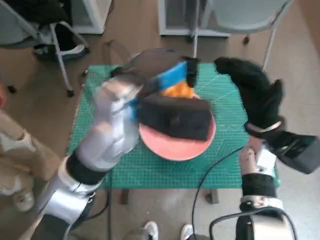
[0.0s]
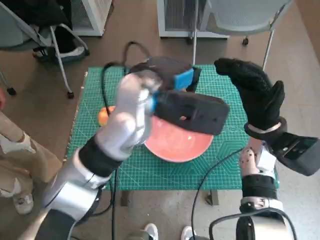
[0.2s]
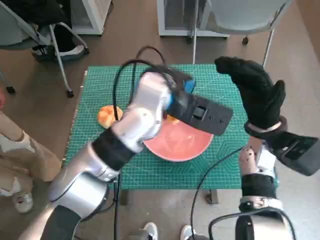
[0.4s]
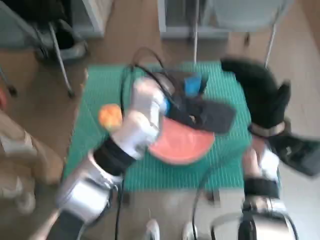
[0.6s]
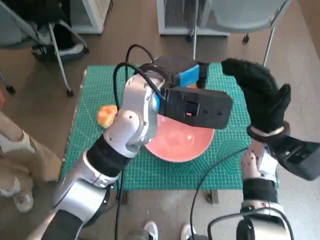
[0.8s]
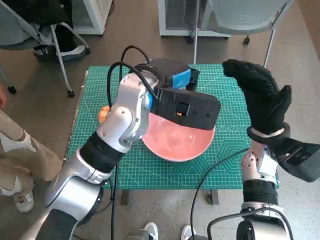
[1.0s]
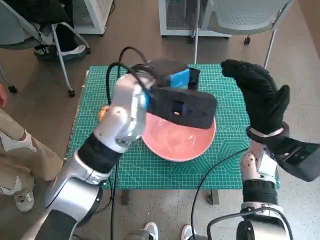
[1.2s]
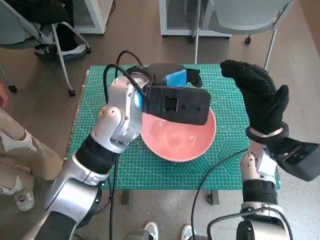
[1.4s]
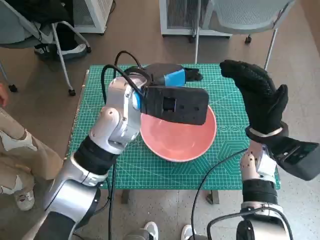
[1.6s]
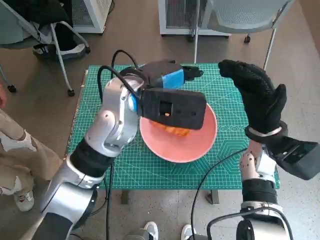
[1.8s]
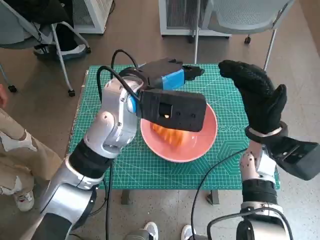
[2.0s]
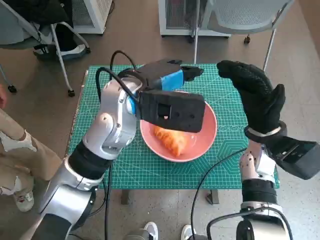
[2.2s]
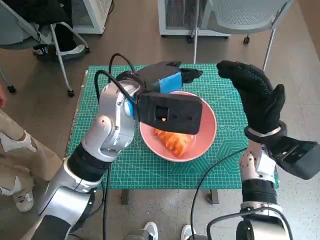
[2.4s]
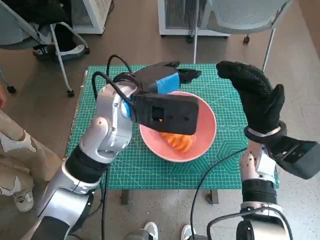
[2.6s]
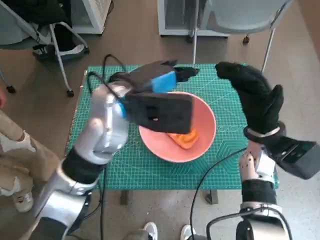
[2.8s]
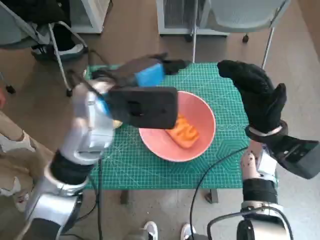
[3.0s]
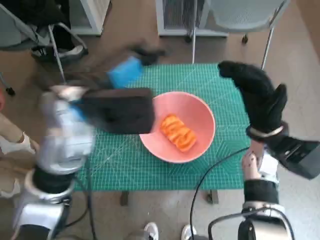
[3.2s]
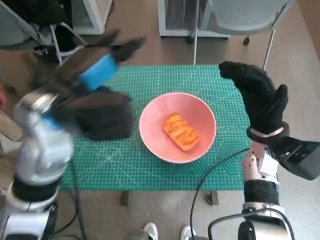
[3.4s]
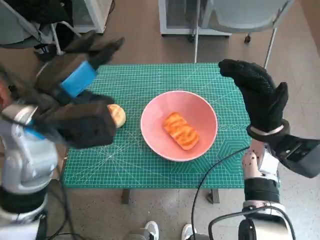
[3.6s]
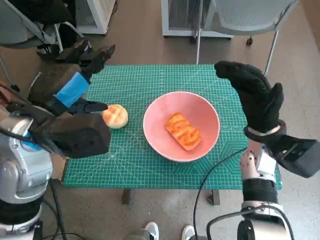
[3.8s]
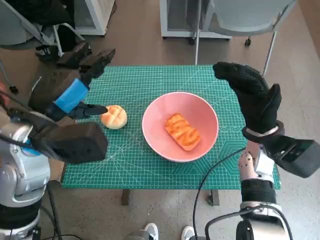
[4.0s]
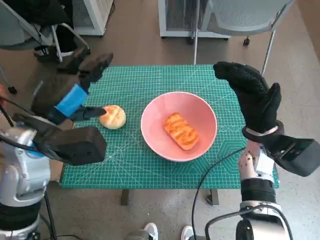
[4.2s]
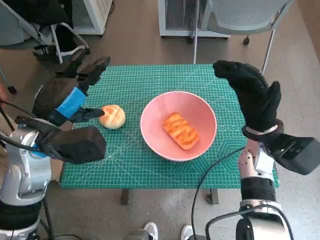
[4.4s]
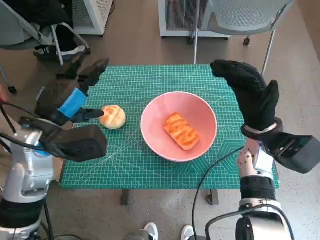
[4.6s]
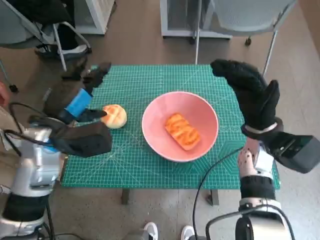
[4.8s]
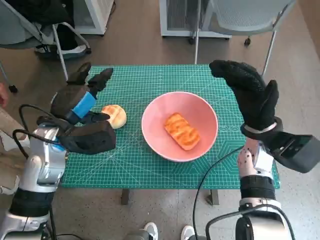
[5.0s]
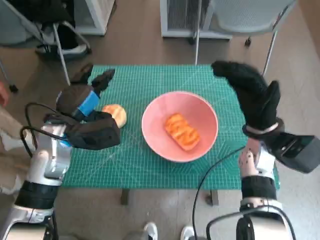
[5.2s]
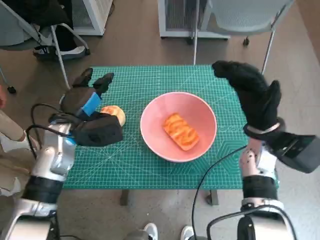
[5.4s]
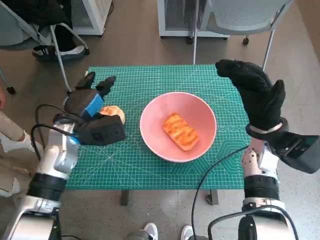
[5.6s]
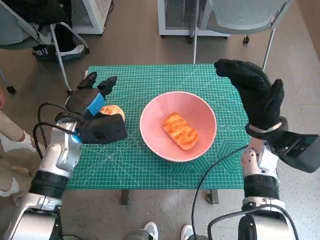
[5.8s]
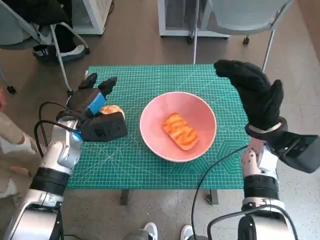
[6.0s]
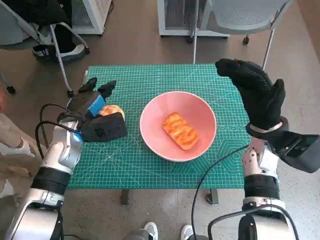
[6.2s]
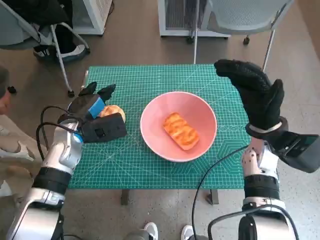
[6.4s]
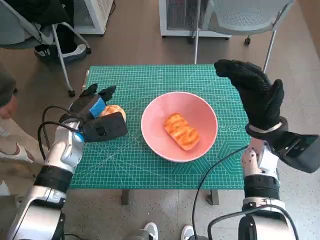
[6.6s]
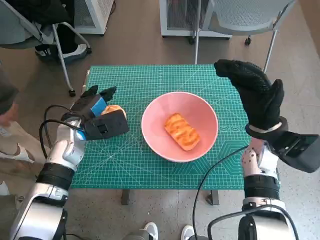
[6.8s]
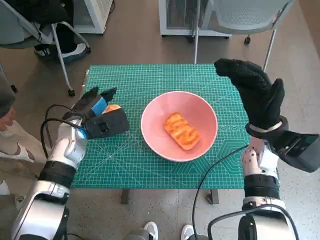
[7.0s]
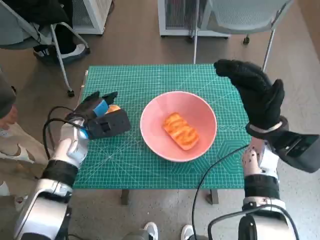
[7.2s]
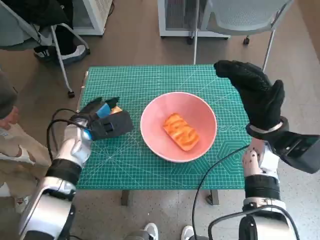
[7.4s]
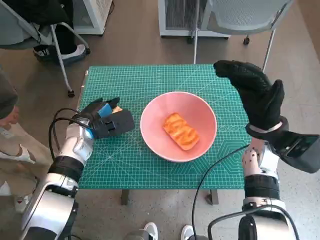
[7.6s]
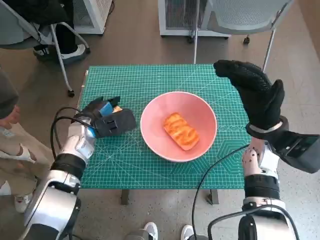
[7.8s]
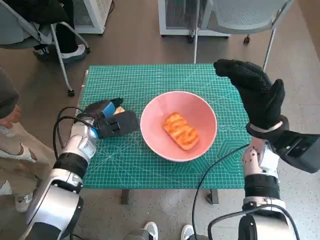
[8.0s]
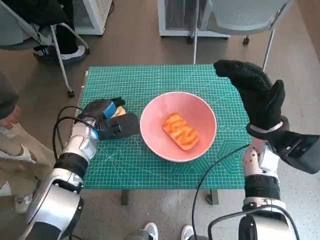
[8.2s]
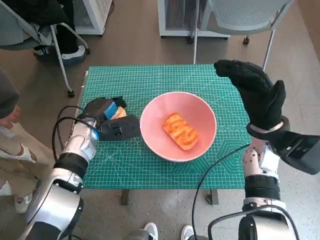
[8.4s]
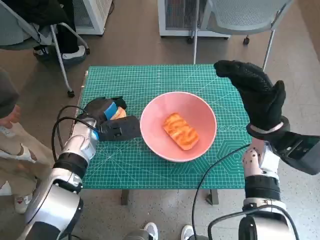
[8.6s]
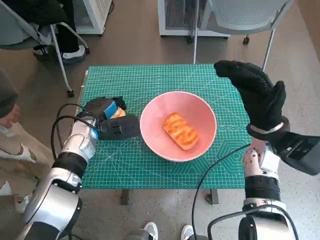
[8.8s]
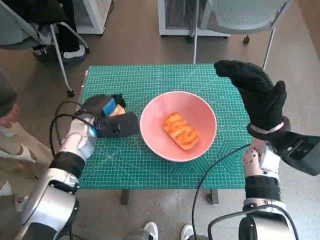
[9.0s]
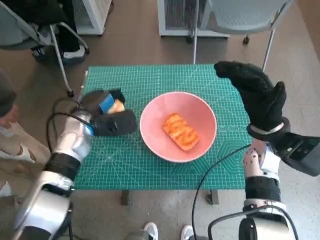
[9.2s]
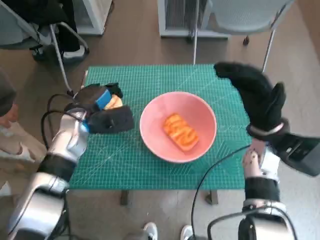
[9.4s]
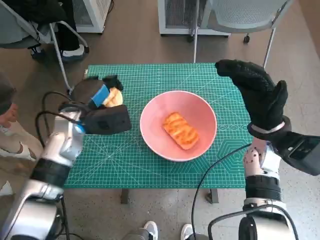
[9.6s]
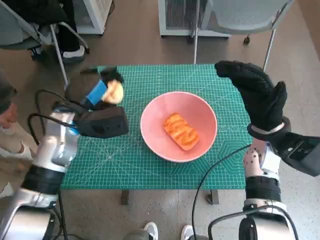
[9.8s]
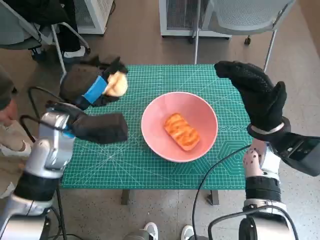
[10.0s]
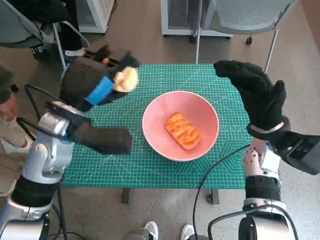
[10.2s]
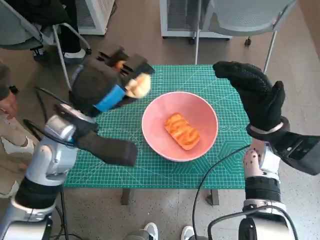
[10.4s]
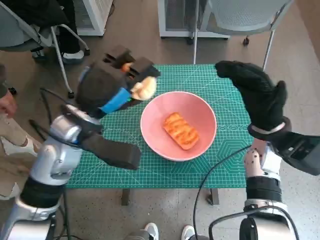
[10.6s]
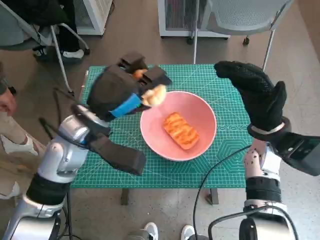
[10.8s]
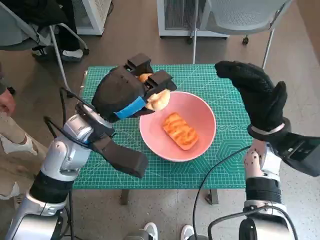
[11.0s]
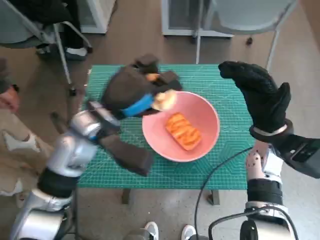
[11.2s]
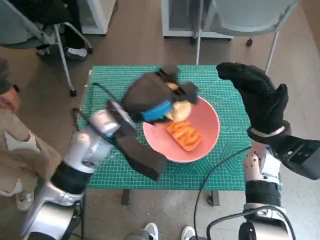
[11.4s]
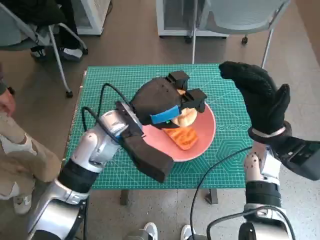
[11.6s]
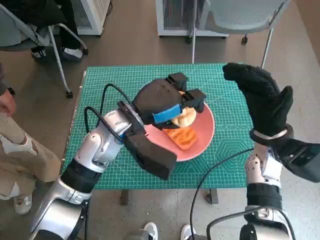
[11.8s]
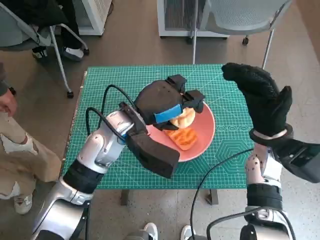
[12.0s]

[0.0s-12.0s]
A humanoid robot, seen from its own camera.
Step, 0.0s to 2.0s: Place the long bread in pink bowl with left hand.
Step, 2.2s to 8.6s: Grasp the round bread with left hand.
0.0s to 1.6s: The left hand moves roughly 5 cm.
3.0s to 4.4s: The left hand heads to the left and backward, covering some 10 cm.
4.4s to 6.0s: The left hand goes roughly 10 cm downward and forward.
7.6s to 9.0s: The hands stay close to where they were, moving slightly.
9.0s to 10.4s: The left hand travels upward and backward by approximately 15 cm.
10.4s to 12.0s: The left hand travels to the right by about 10 cm.

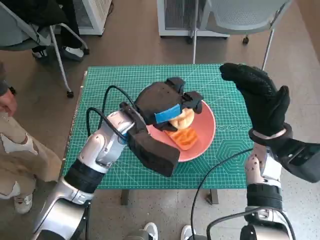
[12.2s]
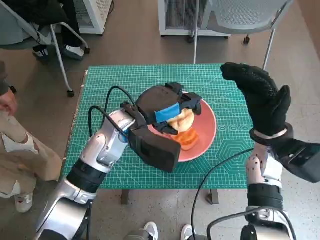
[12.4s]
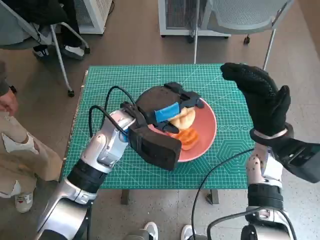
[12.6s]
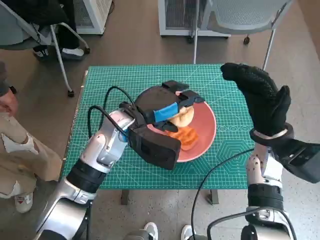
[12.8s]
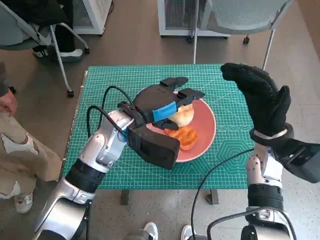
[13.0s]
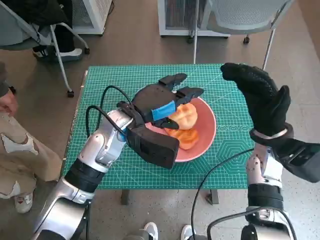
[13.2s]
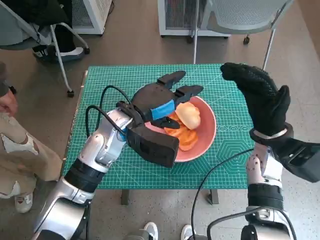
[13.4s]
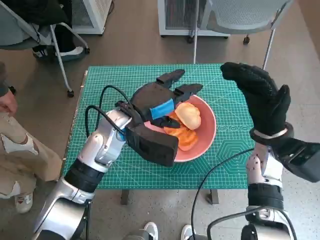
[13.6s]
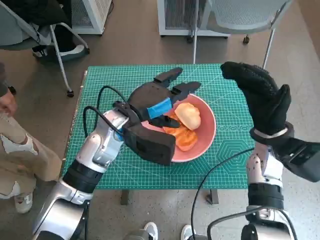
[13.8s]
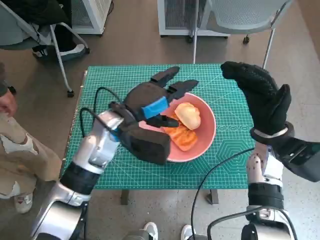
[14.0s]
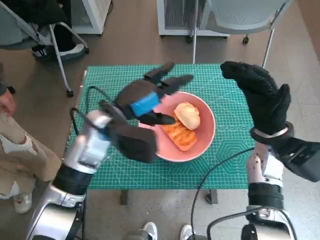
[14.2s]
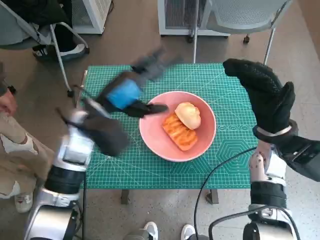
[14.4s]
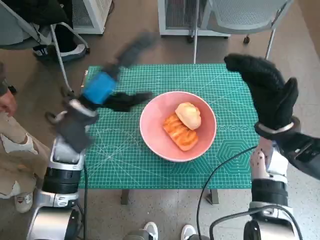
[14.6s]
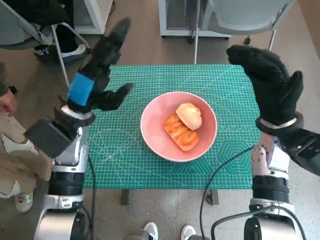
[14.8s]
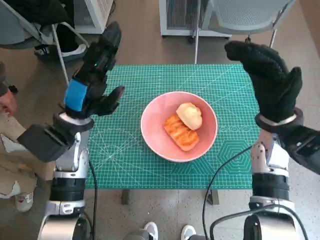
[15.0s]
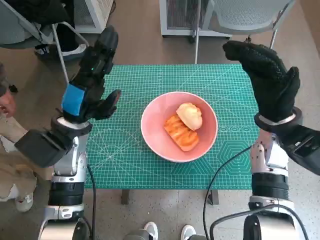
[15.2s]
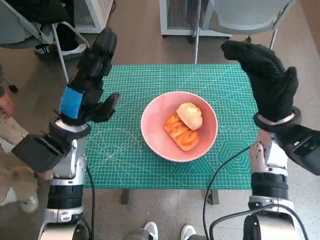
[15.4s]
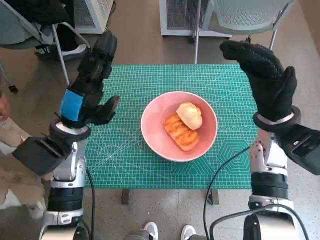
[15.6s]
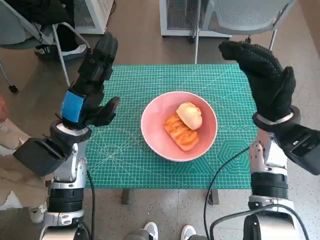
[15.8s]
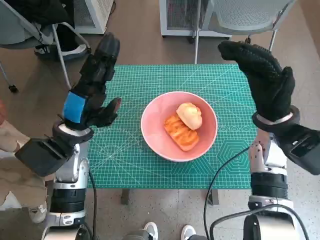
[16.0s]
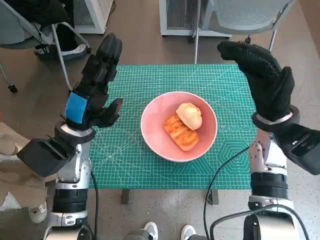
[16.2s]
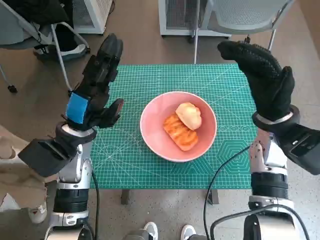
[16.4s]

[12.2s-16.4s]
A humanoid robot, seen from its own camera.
12.2s to 13.6s: The hands stay close to where they were, moving slightly.
13.6s to 15.0s: The left hand shifts roughly 10 cm to the left.
15.0s to 16.4s: The hands move only a little.

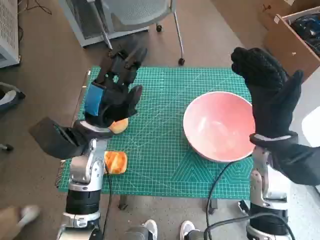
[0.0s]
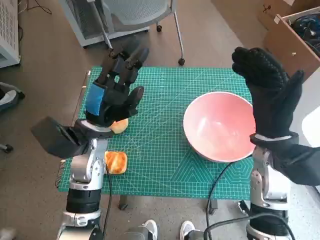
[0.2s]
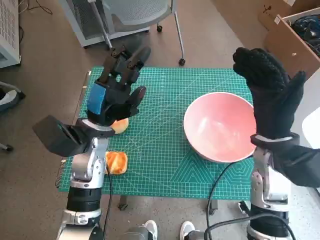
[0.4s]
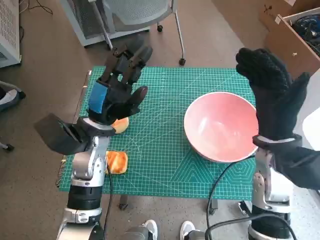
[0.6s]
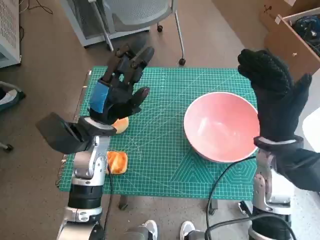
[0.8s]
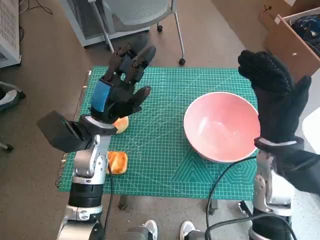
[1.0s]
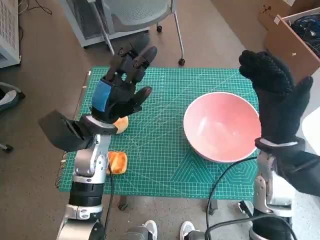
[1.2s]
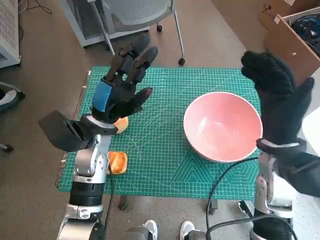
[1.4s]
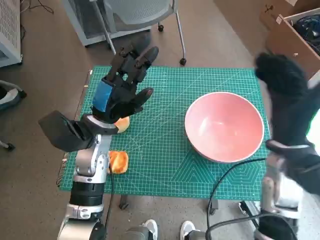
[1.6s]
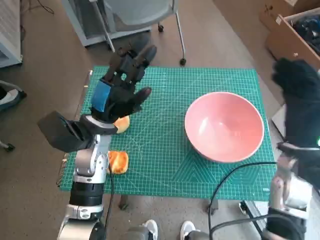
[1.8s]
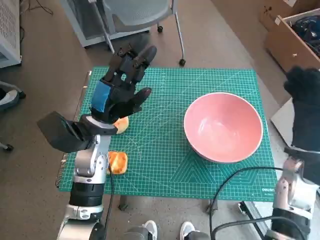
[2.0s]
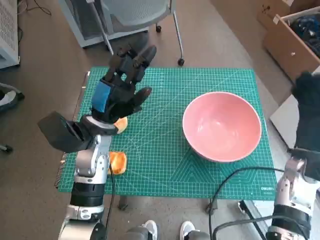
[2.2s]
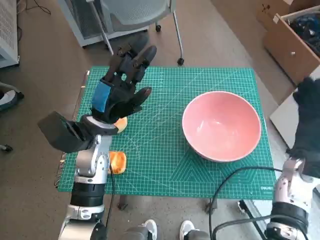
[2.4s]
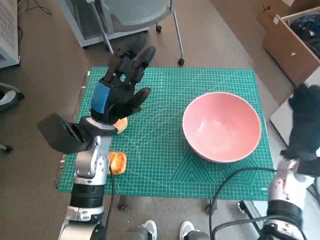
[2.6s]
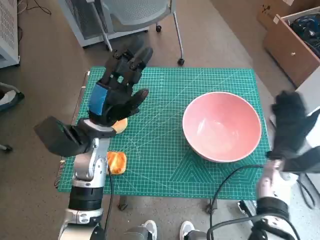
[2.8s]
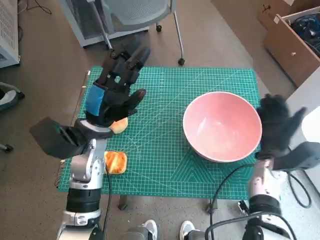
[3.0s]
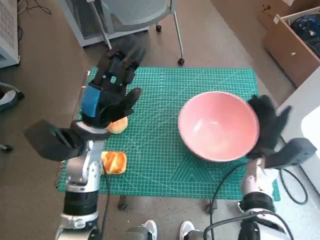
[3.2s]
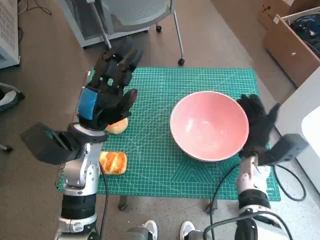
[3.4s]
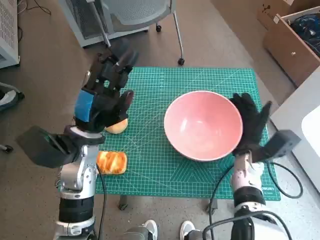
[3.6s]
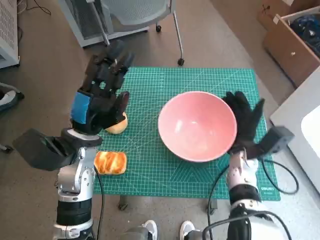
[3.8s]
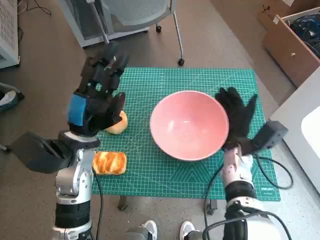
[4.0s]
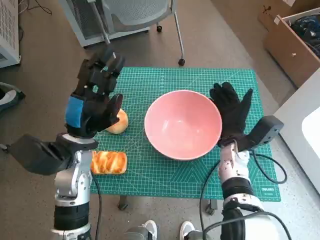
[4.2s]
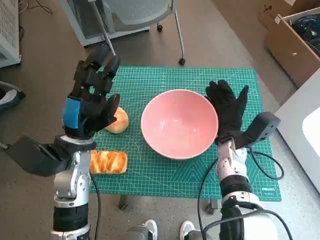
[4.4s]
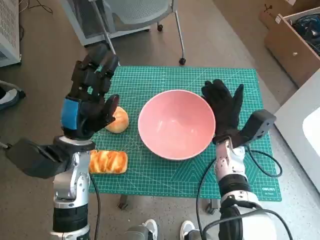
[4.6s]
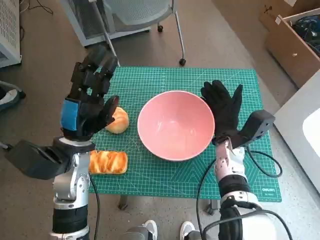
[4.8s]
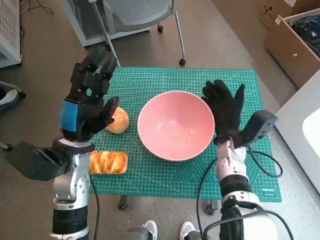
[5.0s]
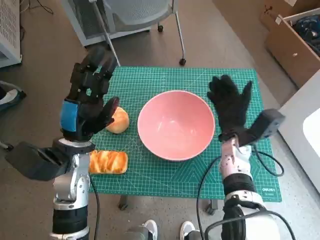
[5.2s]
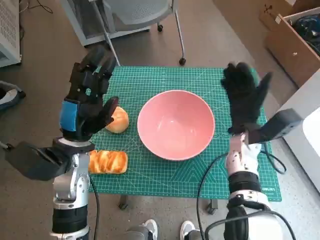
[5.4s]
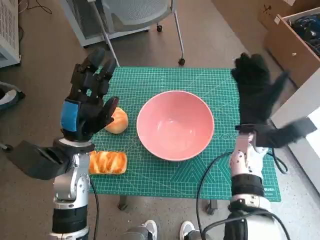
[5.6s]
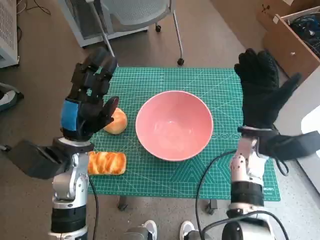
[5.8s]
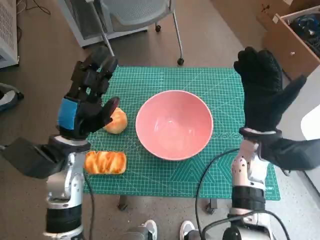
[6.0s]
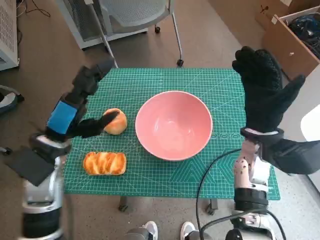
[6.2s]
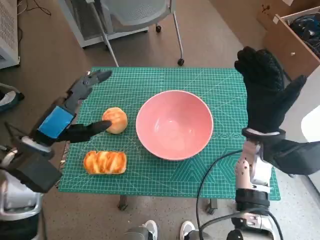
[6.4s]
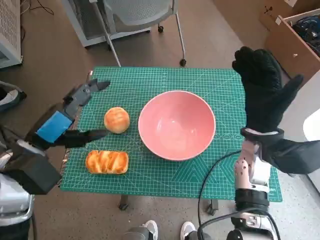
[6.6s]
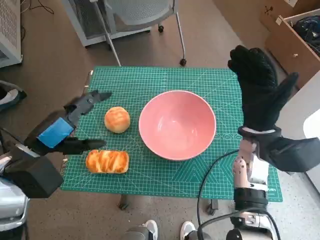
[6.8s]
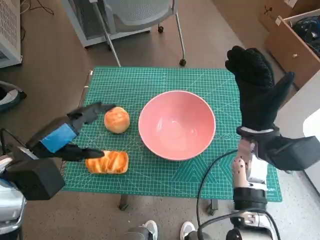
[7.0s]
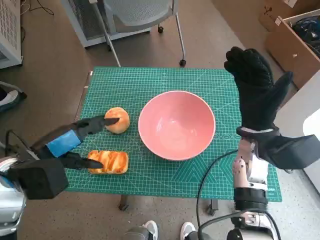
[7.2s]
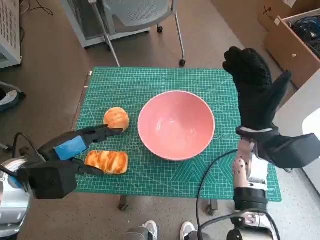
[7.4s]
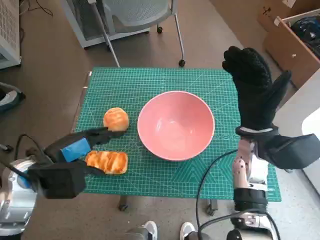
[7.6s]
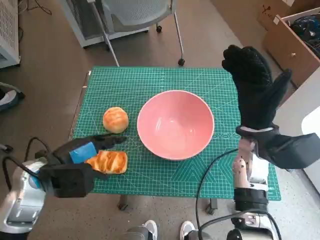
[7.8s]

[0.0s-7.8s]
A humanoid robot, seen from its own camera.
Step, 0.0s to 5.0s: Move the pink bowl to the center of table with right hand.
1.6s to 3.2s: The right hand is displaced downward by some 10 cm.
3.2s to 4.6s: The right hand shifts approximately 10 cm to the left.
4.6s to 6.2s: The right hand heads upward, covering some 10 cm.
